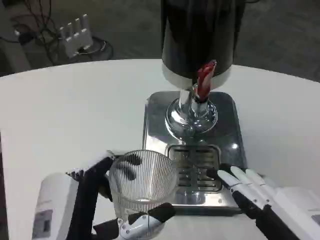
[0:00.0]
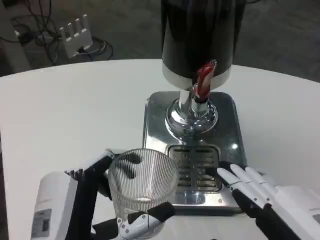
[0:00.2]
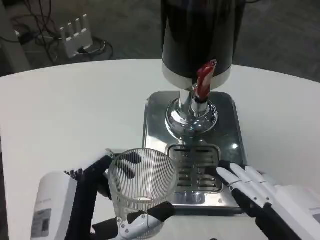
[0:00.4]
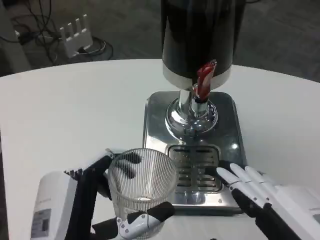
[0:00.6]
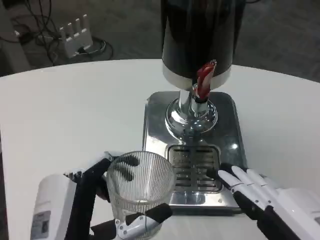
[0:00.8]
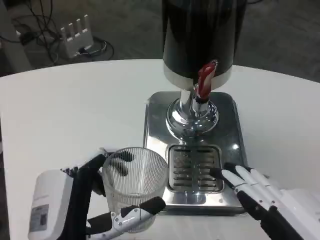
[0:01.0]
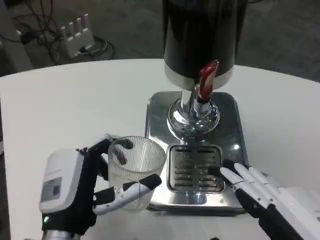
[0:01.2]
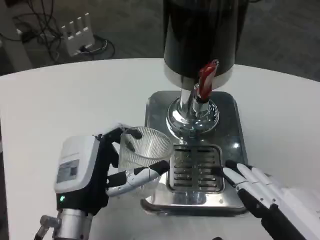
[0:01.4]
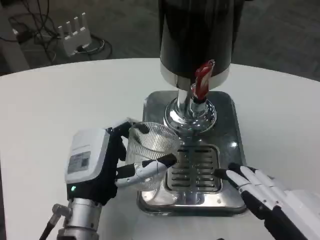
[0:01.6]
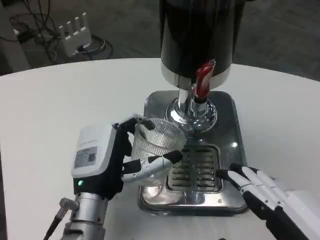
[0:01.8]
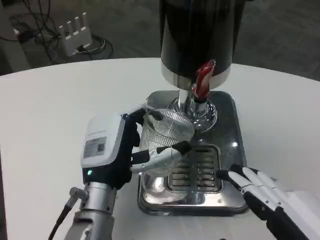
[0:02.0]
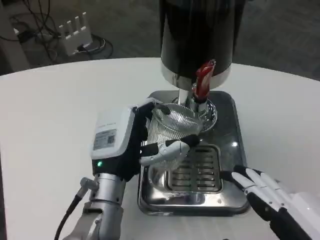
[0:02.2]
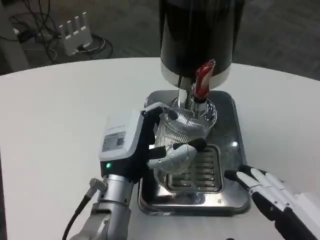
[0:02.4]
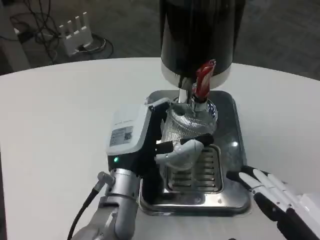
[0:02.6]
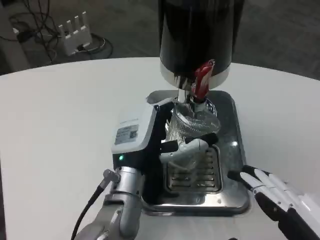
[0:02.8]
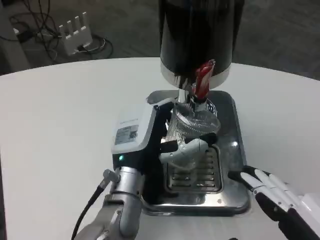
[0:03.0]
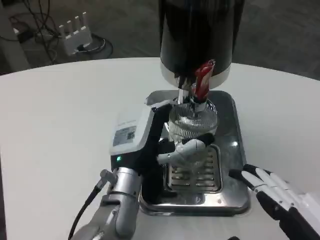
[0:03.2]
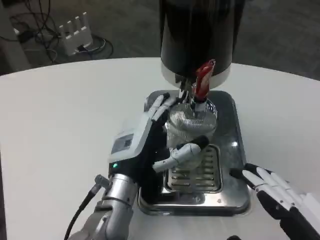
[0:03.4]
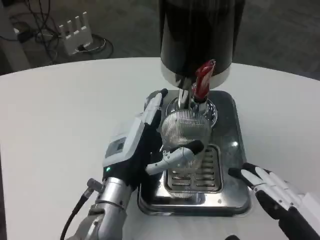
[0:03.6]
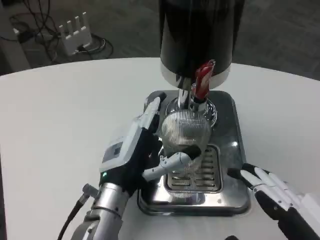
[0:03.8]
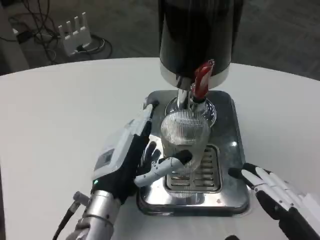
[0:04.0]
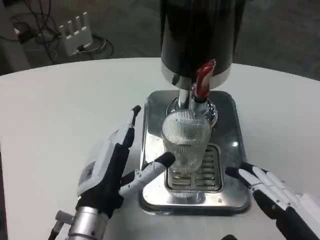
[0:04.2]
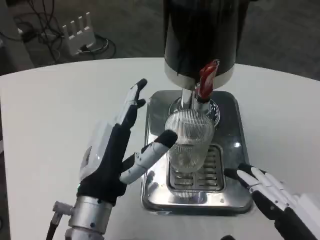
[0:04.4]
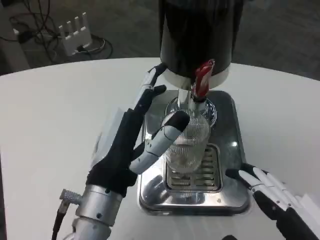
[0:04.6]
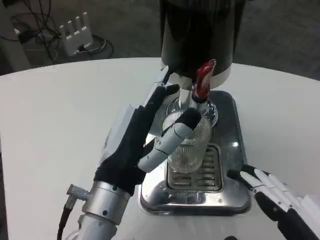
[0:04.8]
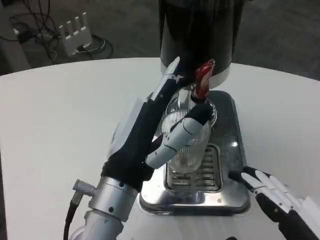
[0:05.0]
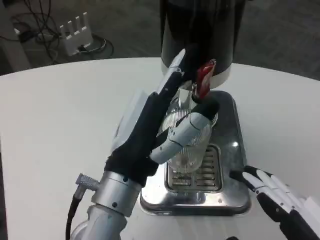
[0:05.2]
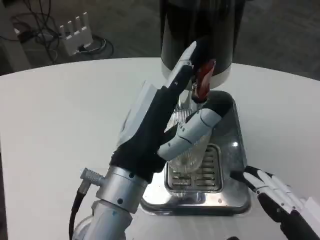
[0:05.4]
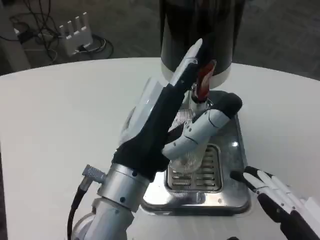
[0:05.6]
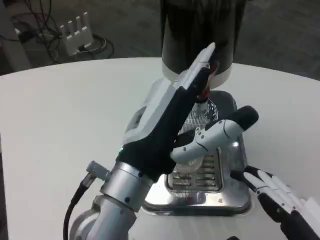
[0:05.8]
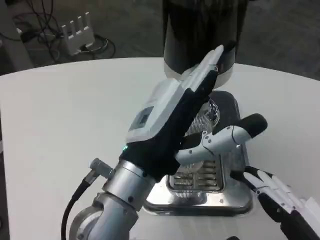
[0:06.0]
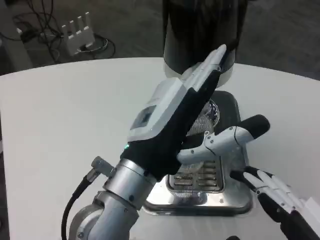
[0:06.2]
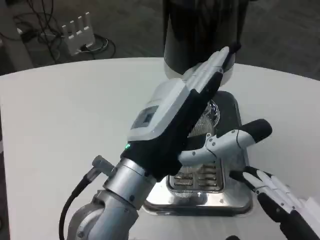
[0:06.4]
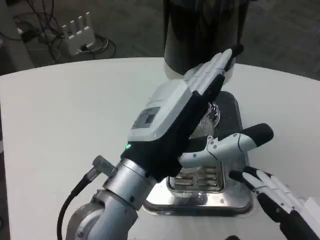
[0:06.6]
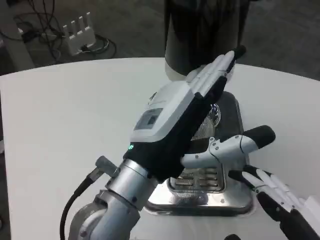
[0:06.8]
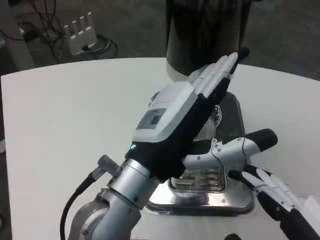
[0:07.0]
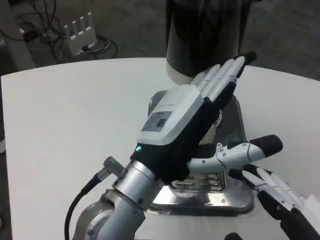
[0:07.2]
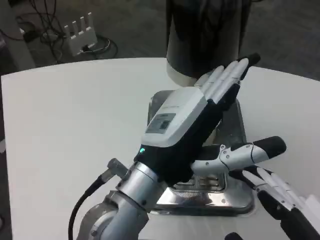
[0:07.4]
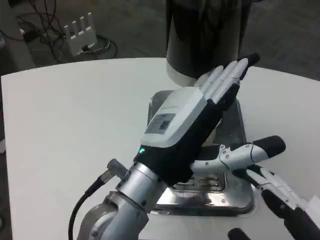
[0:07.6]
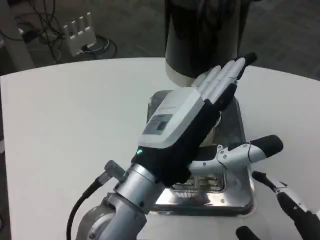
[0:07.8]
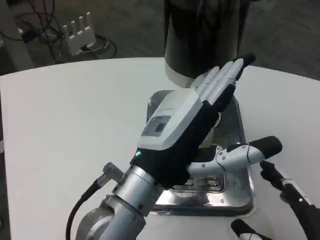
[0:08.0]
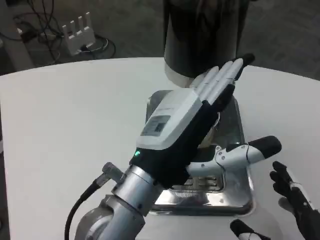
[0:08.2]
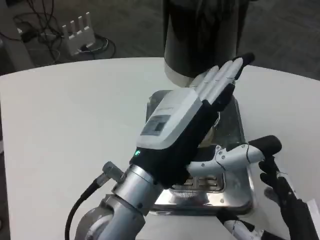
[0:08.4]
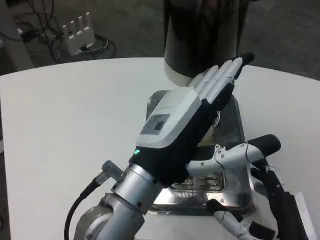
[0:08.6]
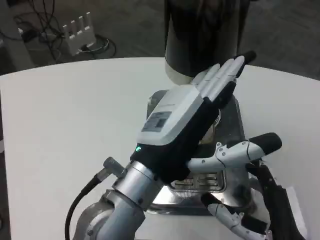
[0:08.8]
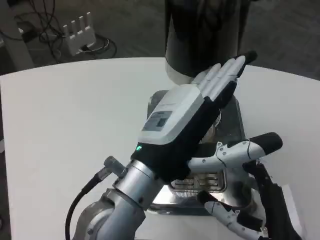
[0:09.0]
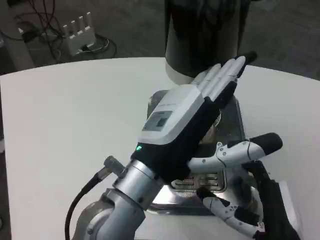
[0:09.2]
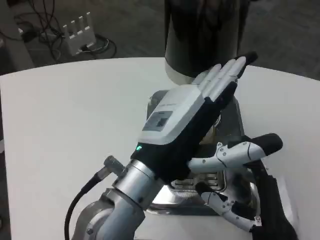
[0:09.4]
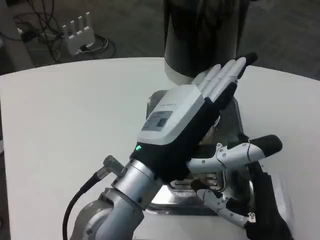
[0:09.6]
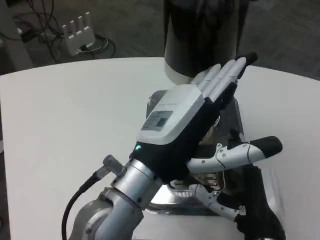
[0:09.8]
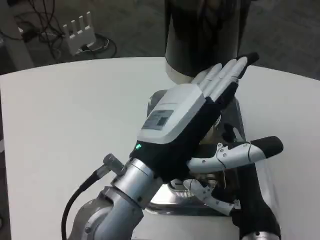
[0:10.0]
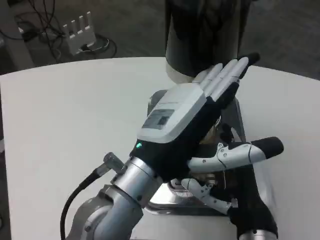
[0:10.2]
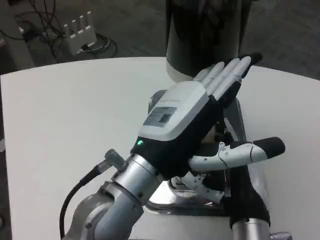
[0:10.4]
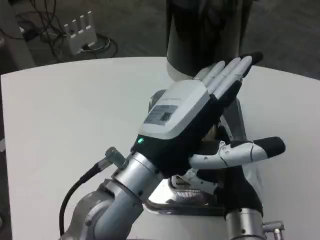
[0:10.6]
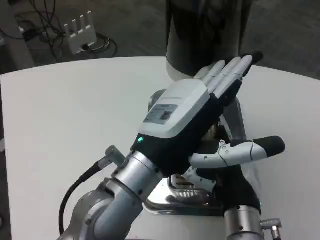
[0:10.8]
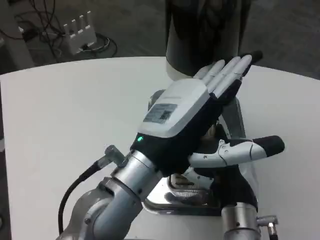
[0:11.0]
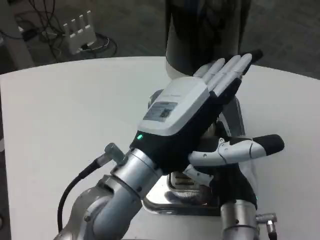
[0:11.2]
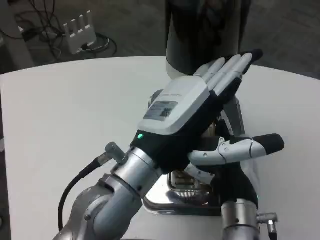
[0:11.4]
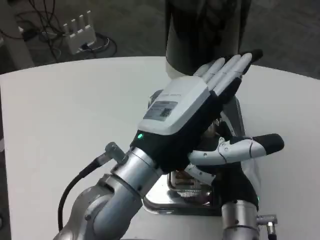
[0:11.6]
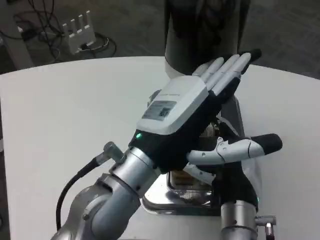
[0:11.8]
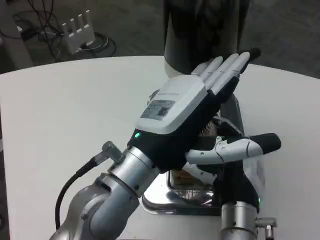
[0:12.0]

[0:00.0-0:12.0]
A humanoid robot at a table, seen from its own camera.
Task of the whole recording: Grasp the cup under the faucet to collect the drink, then remove the cup.
0:00.0 to 0:01.6: The left hand goes approximately 10 cm forward.
0:01.6 to 0:03.0: The left hand is displaced to the right by roughly 5 cm.
0:03.0 to 0:04.4: The left hand travels backward by about 5 cm.
0:04.4 to 0:06.0: The left hand moves upward, roughly 5 cm.
0:07.6 to 0:09.0: The right hand shifts about 15 cm forward, downward and to the left.
0:09.0 to 0:10.4: The right hand is displaced forward by approximately 5 cm.

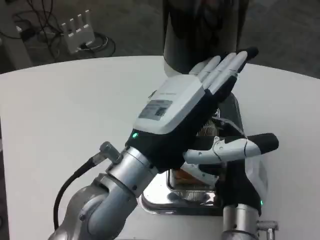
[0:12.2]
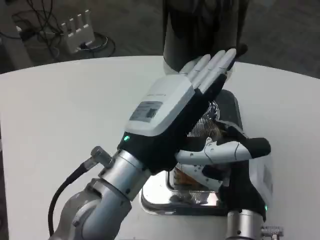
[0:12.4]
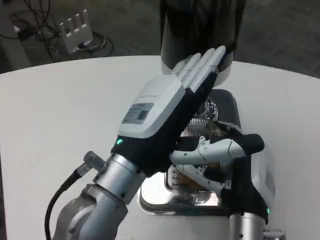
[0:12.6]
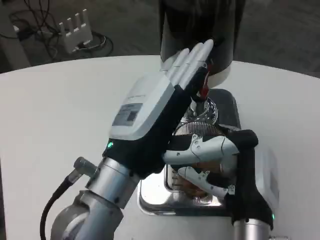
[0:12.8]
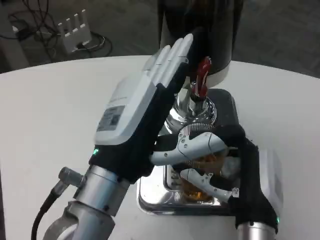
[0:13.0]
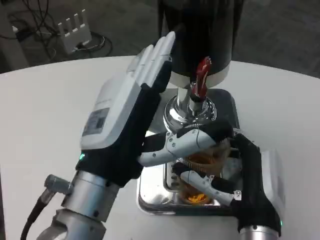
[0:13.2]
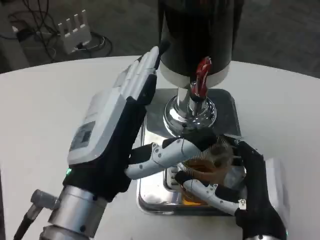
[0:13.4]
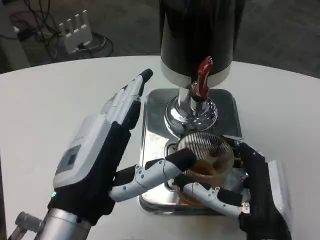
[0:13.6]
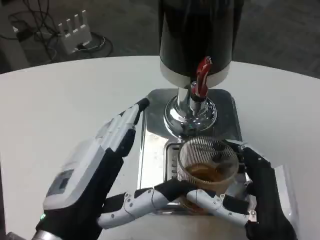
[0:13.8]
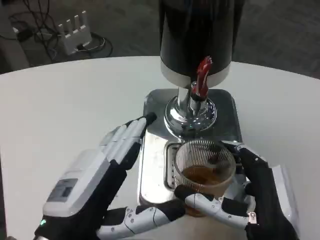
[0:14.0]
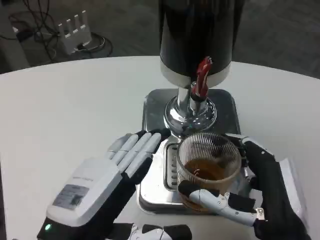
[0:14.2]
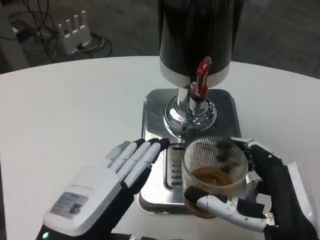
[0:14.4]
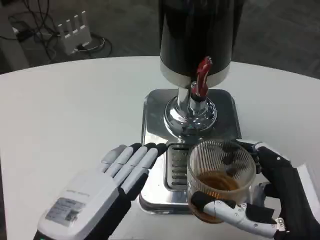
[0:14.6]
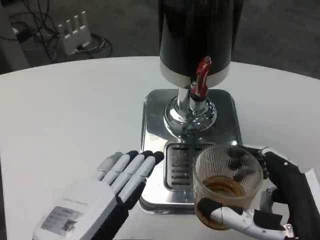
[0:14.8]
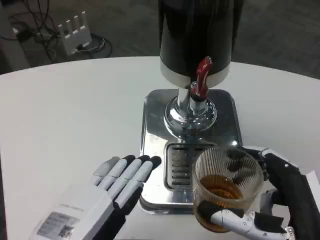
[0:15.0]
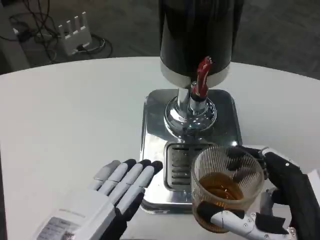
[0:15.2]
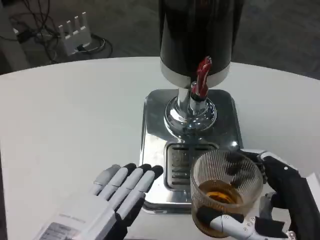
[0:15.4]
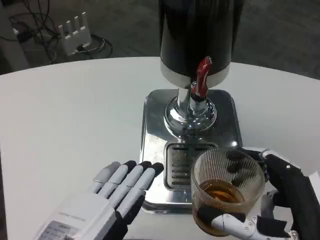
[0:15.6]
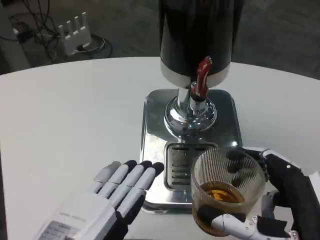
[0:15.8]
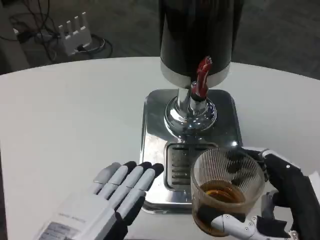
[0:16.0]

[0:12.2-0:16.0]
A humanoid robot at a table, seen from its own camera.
Task of the whole recording: Grasp the cup under the faucet to collect the drink, then remove the cup.
0:12.2 to 0:13.4: Both hands move backward, roughly 5 cm.
0:13.4 to 0:14.8: The right hand travels backward and to the right by about 10 cm. The left hand is displaced to the left by approximately 5 cm.
0:14.8 to 0:16.0: There are only small adjustments of the hands.

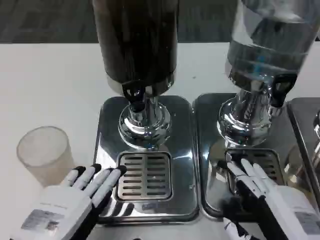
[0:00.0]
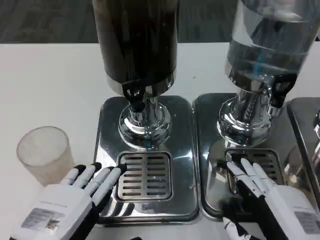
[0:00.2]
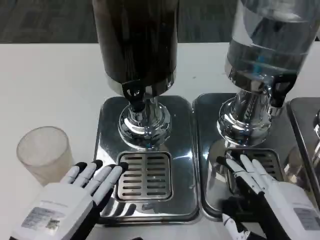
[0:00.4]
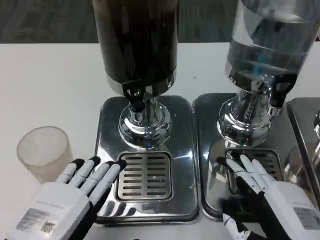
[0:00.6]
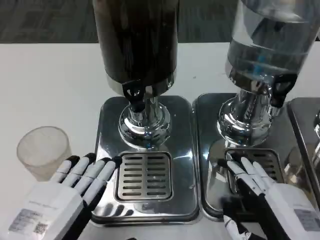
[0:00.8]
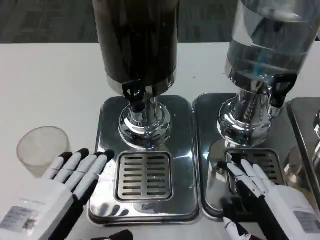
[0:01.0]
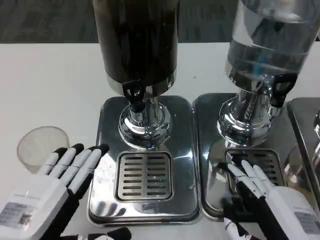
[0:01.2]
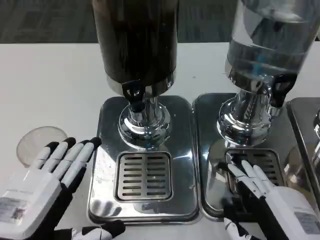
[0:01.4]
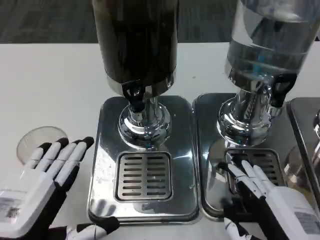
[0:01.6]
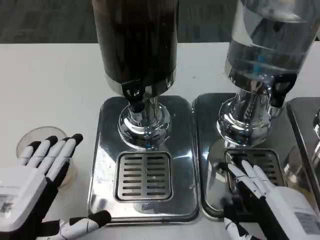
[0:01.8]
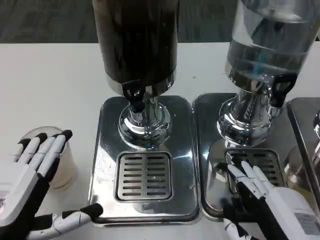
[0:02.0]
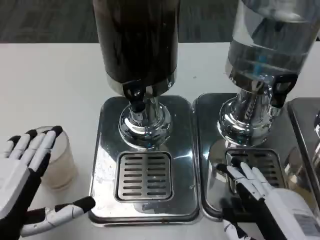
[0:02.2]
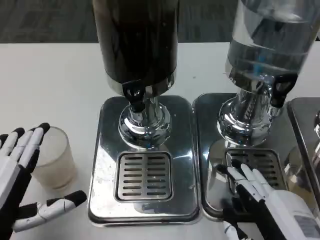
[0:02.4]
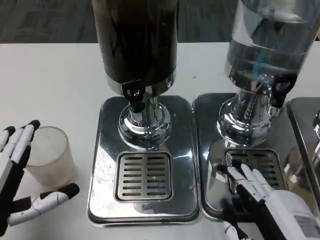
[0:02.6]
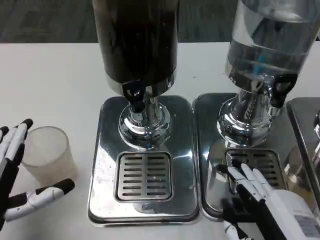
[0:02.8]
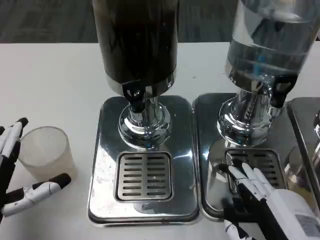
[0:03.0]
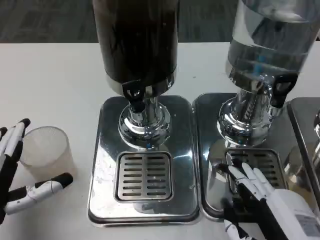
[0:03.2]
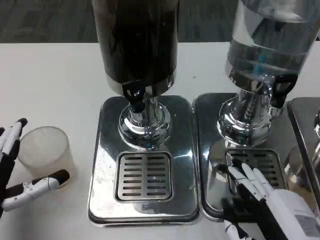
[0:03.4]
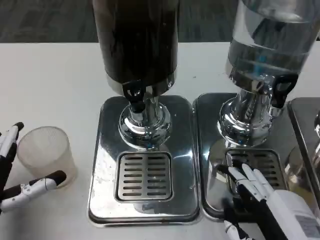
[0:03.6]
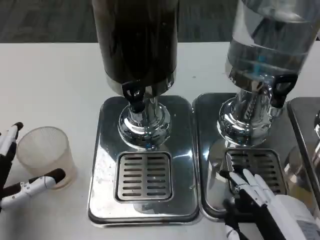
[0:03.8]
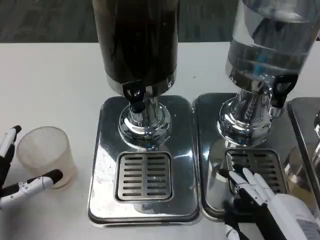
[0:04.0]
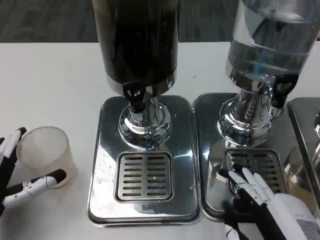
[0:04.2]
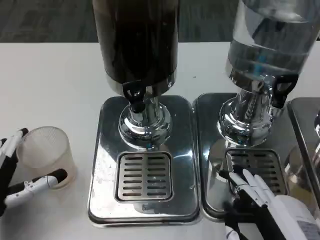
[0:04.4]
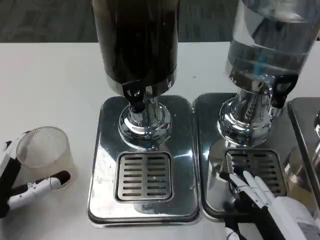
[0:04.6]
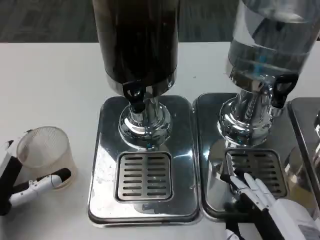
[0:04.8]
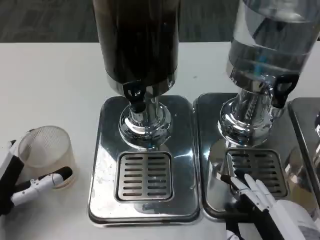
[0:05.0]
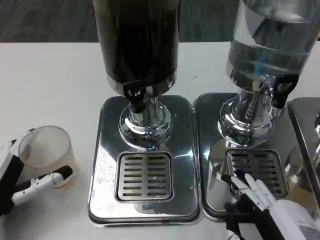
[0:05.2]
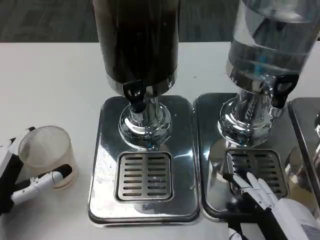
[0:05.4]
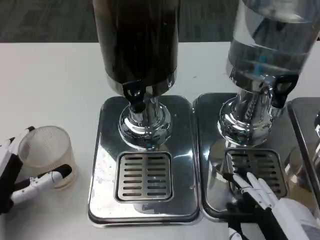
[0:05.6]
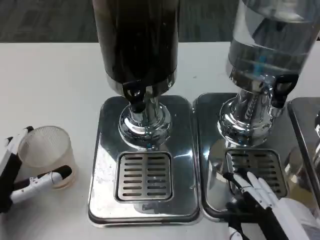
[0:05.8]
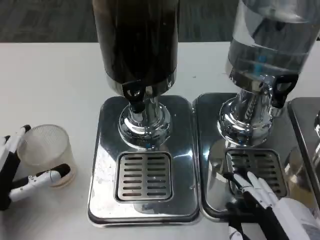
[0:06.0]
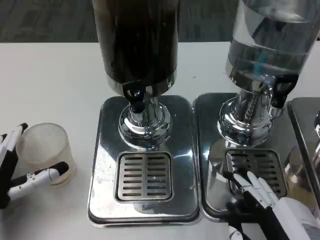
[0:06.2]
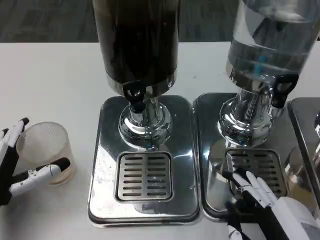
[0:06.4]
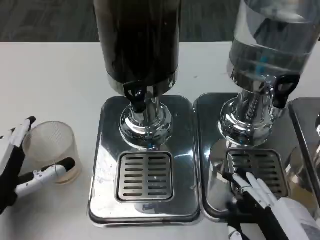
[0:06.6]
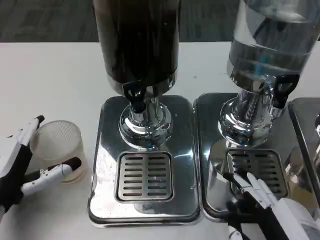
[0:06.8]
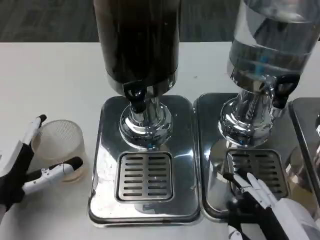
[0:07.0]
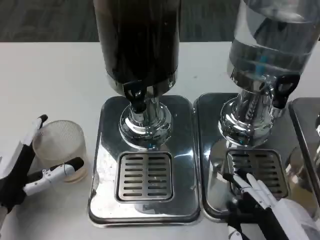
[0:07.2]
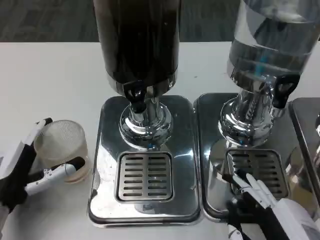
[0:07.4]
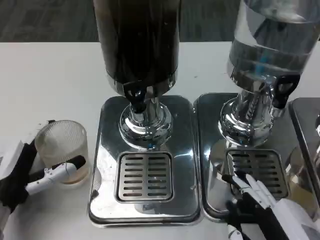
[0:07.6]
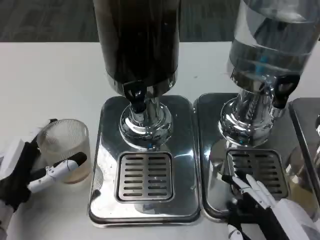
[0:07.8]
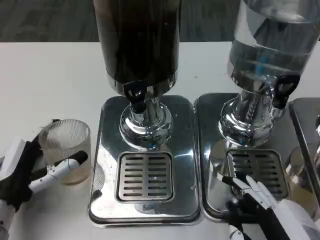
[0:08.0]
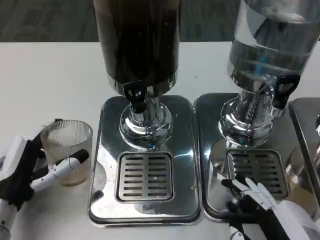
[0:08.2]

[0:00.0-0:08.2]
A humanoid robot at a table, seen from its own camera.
Task of the whole recording: Grasp the cup under the faucet to collect the drink, then remove the cup.
0:00.0 to 0:01.6: The hands move only a little.
0:01.6 to 0:03.2: The left hand moves approximately 5 cm.
0:03.2 to 0:06.6: The hands stay close to where they were, moving slightly.
0:06.6 to 0:08.2: The hands stay close to where they were, moving slightly.
